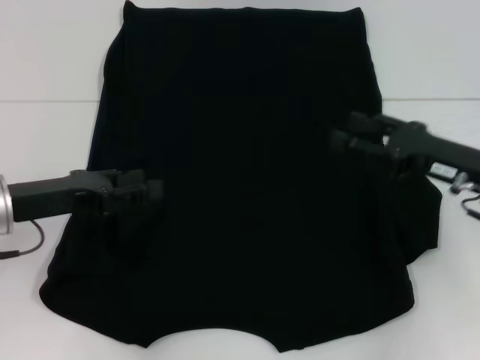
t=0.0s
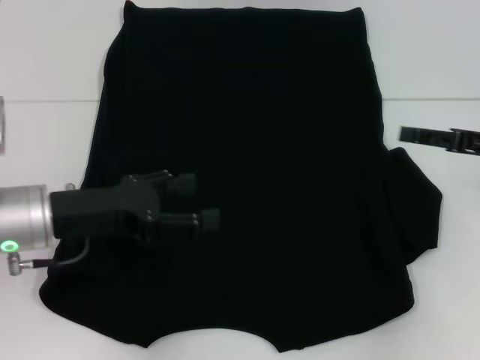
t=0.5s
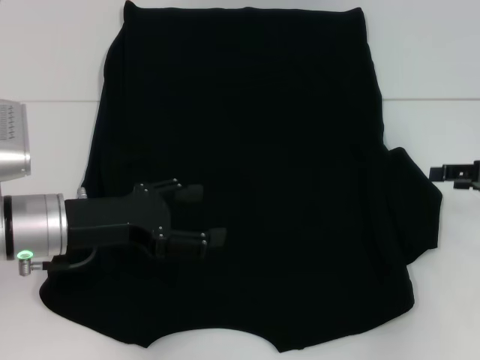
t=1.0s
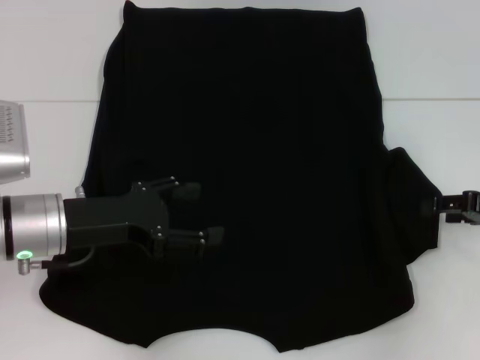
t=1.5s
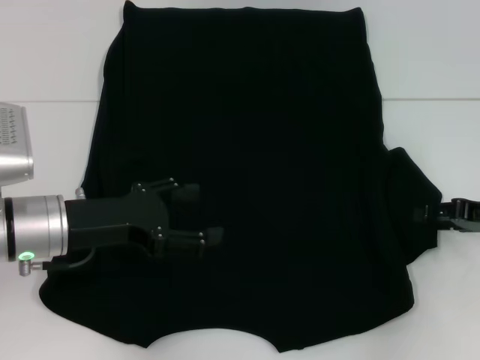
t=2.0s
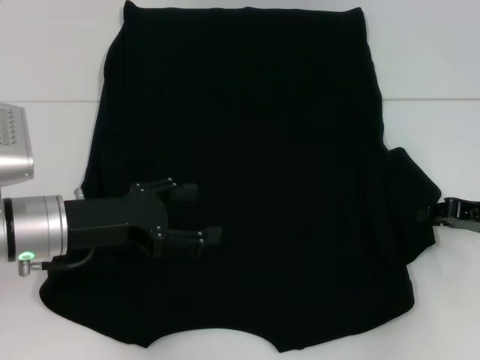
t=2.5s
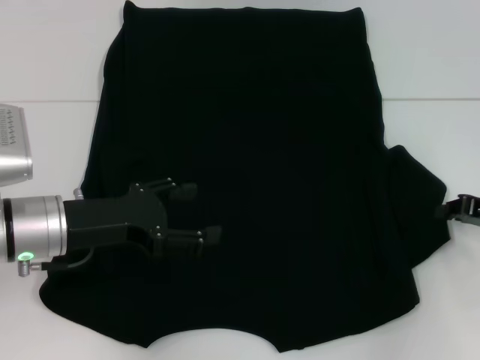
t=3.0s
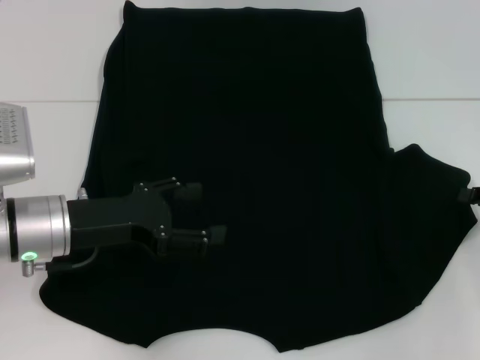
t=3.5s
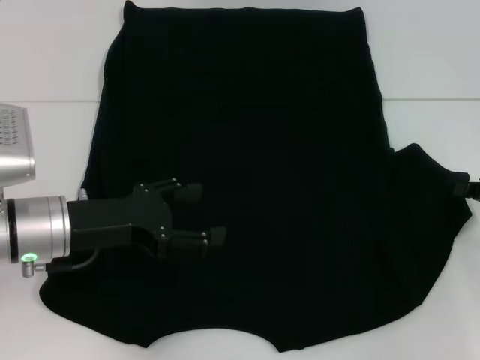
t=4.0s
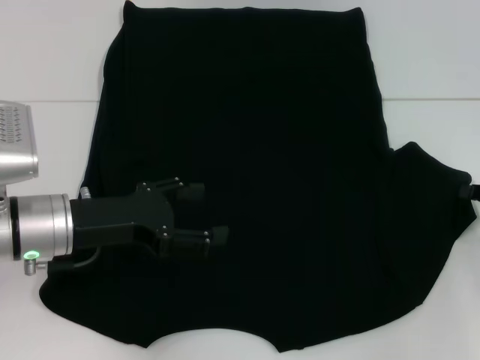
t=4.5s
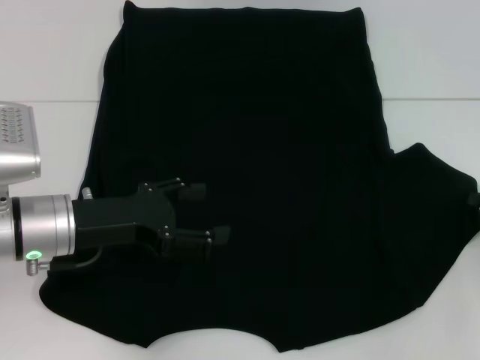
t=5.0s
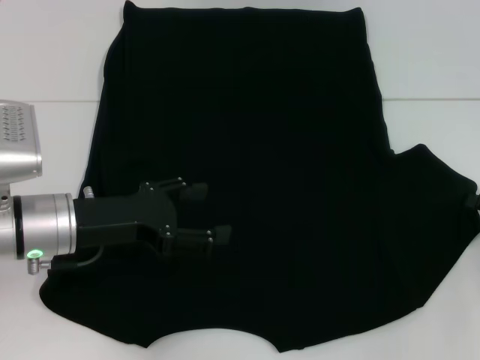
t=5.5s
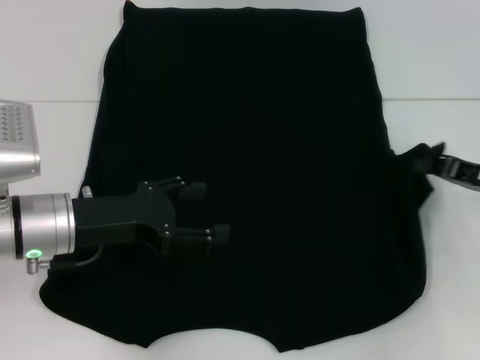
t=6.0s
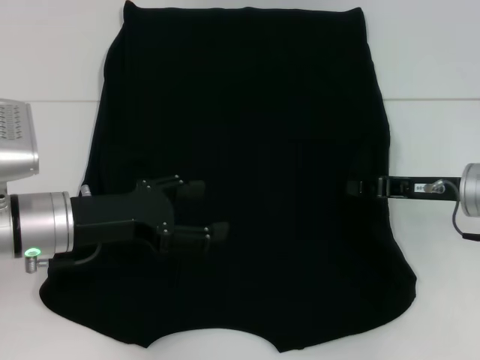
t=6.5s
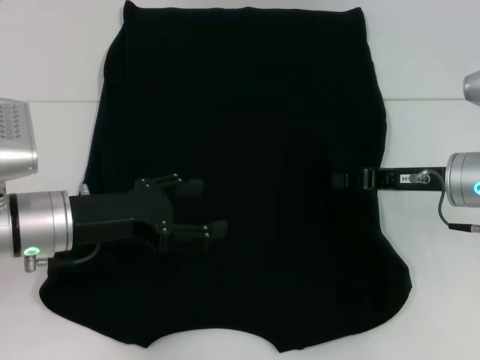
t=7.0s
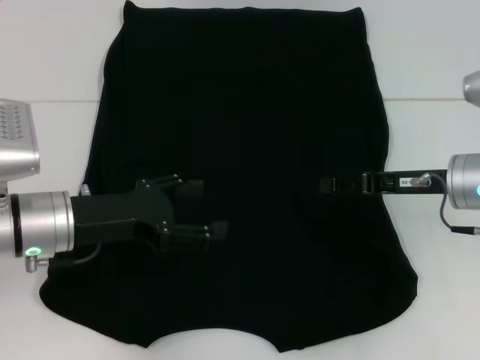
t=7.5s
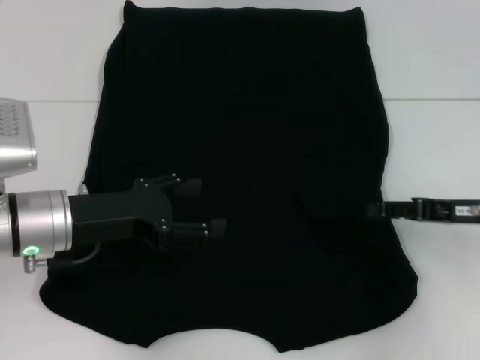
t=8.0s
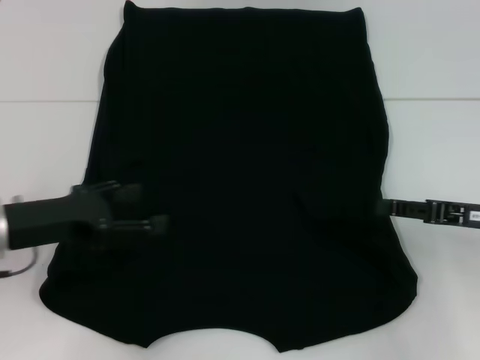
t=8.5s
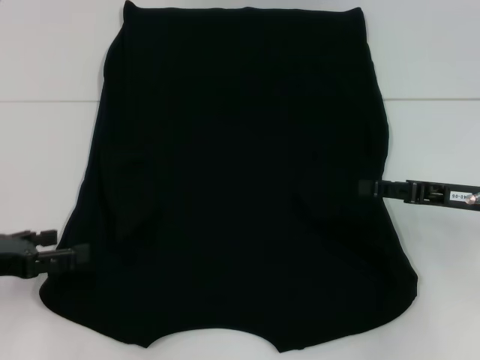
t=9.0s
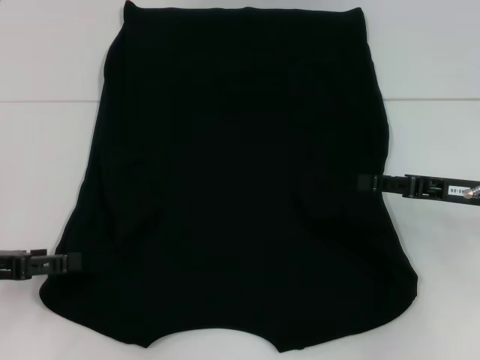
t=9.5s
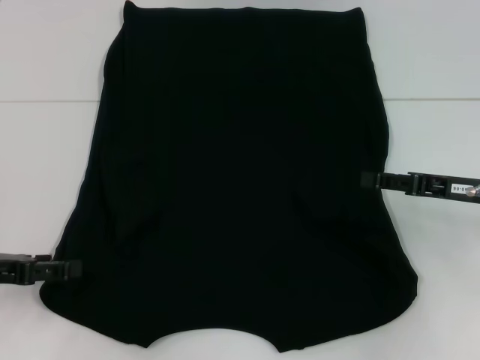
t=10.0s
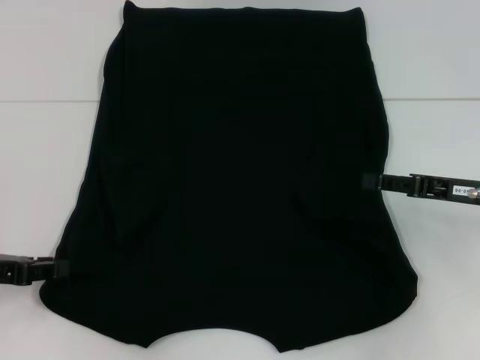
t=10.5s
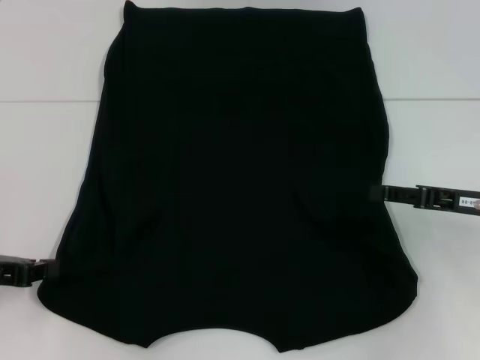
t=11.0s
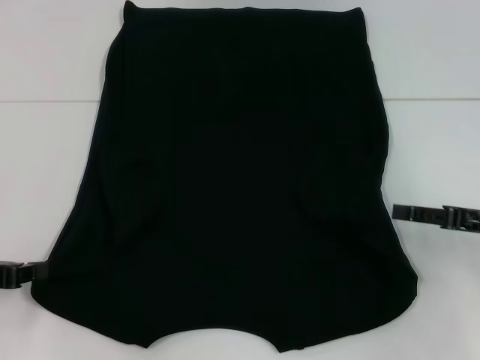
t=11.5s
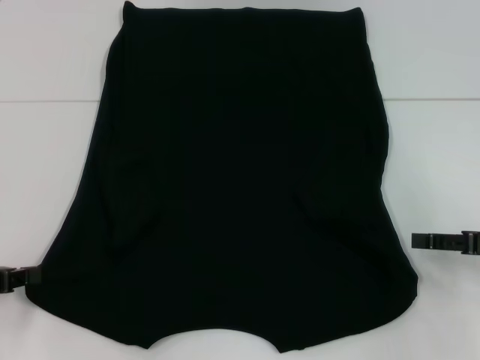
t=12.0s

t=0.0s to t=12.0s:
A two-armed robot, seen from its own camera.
Step, t=0.5s to t=7.5s: Fold the bottom right sleeve with your right hand.
t=0.0s to t=2.0s: The left gripper shifts by roughly 5 cm, and opens up. Meanwhile the right gripper shifts roughly 10 cm to the right.
t=2.0s to t=4.0s: The right gripper closes.
t=4.0s to t=6.0s: The grippers stay close to where they were, moving slightly.
t=6.0s to t=8.0s: The right gripper moves roughly 10 cm to the left and comes back, and opens its fingers.
t=8.0s to t=10.0s: The left gripper is displaced to the left by roughly 10 cm.
t=10.0s to t=12.0s: The left gripper closes; the right gripper moves to the right, some 5 cm.

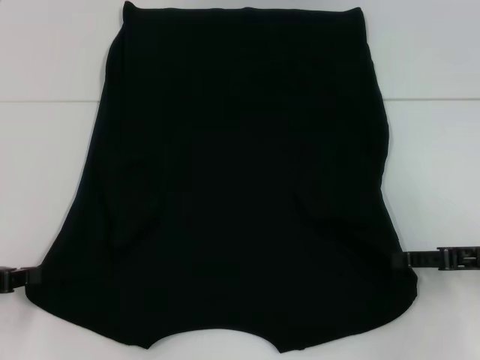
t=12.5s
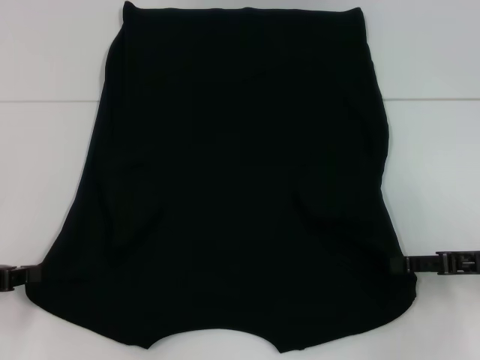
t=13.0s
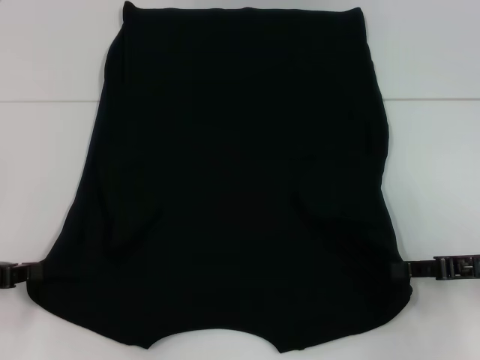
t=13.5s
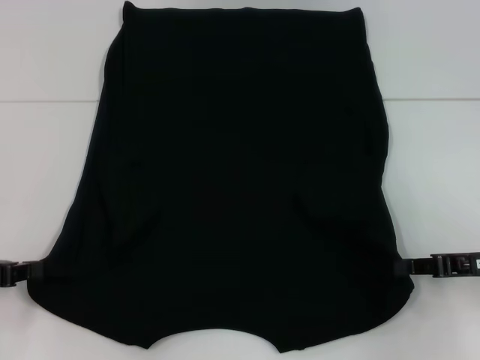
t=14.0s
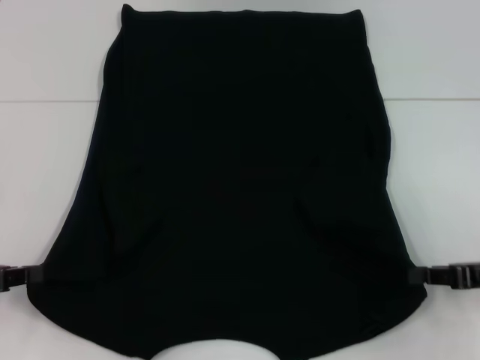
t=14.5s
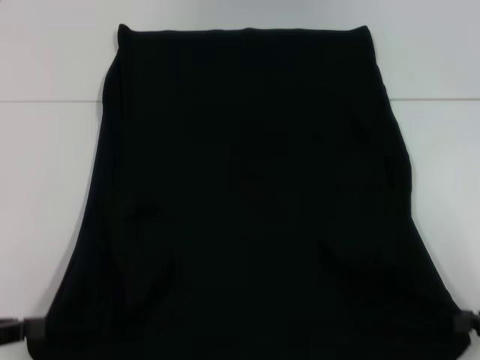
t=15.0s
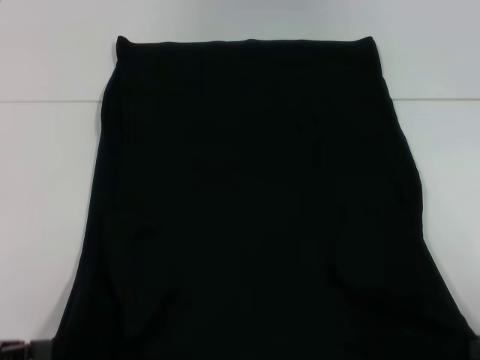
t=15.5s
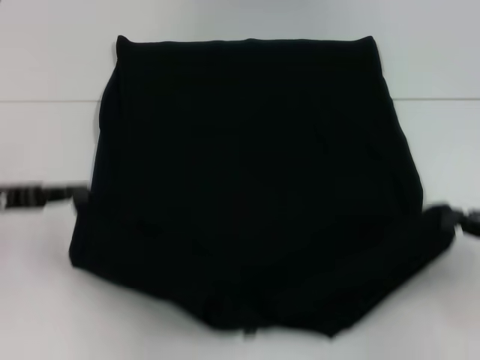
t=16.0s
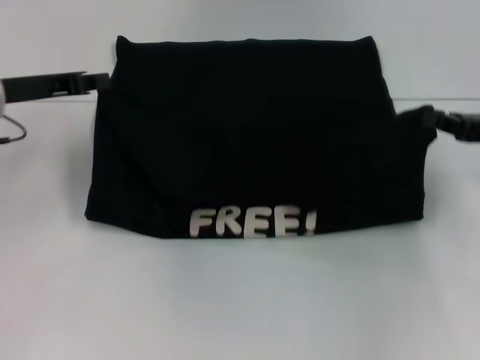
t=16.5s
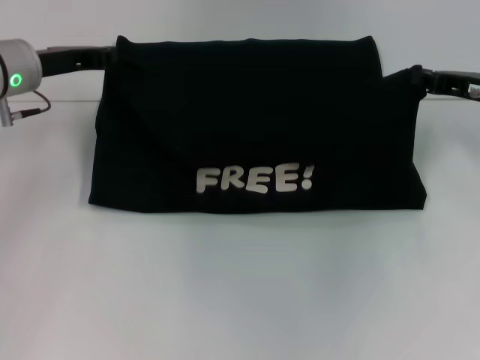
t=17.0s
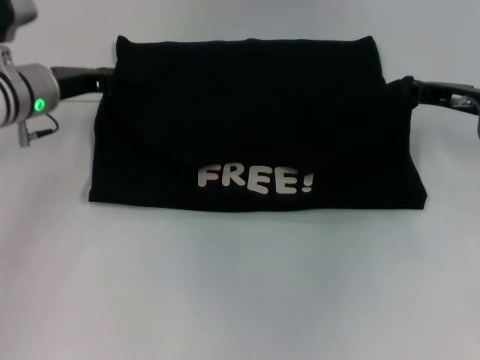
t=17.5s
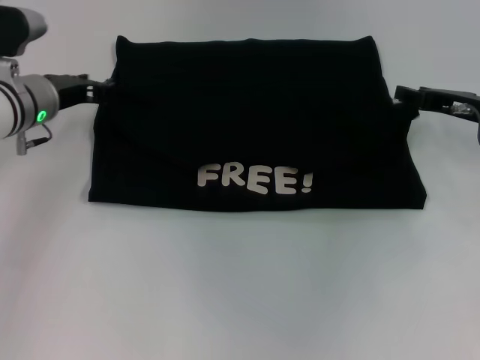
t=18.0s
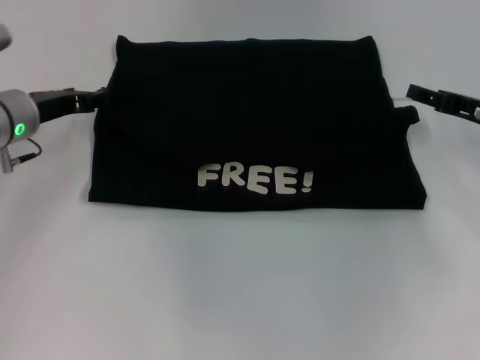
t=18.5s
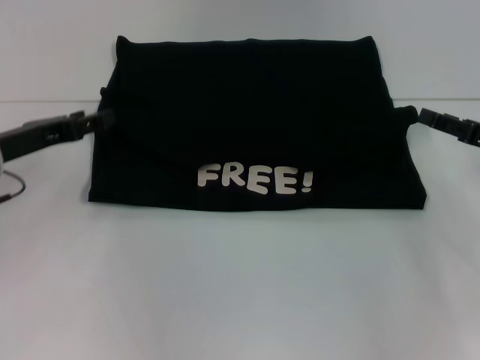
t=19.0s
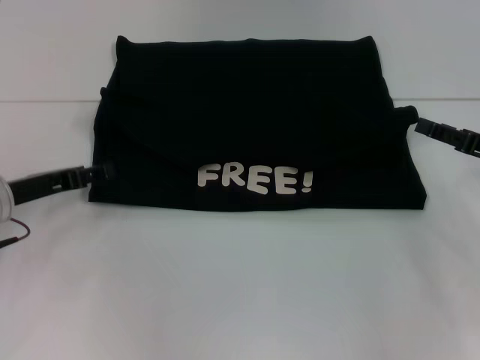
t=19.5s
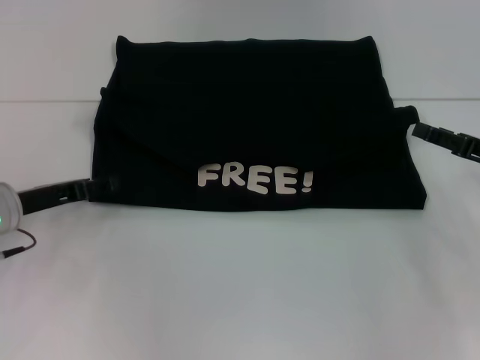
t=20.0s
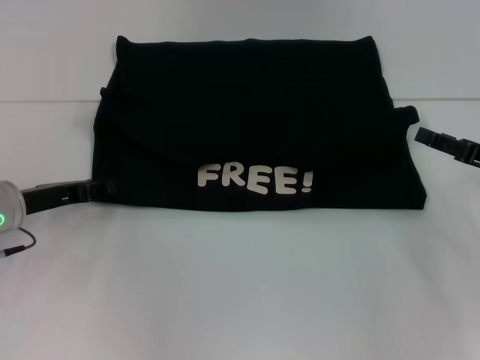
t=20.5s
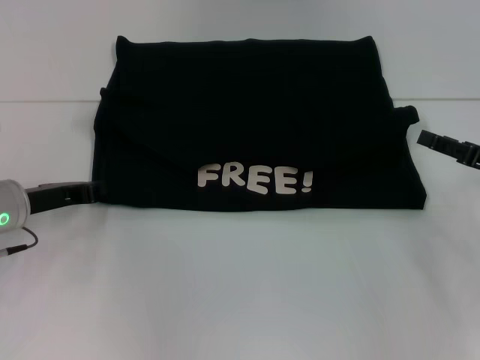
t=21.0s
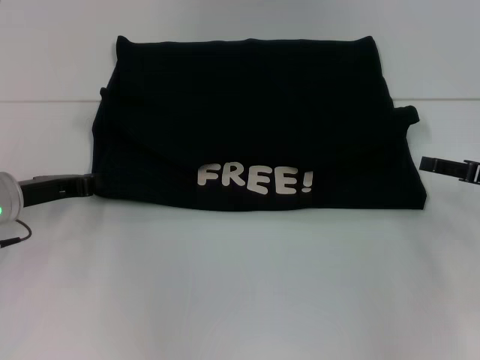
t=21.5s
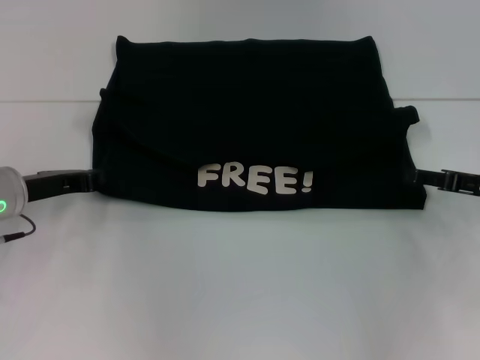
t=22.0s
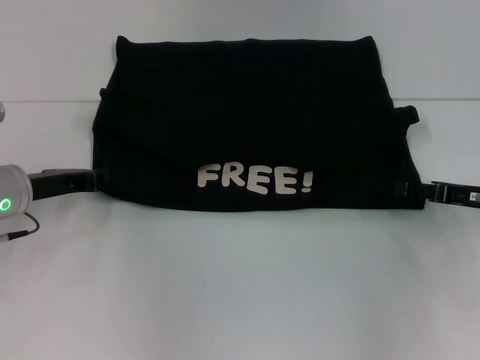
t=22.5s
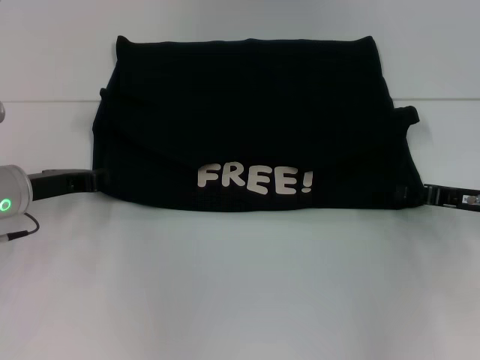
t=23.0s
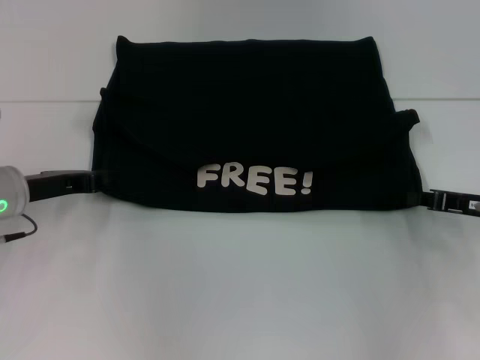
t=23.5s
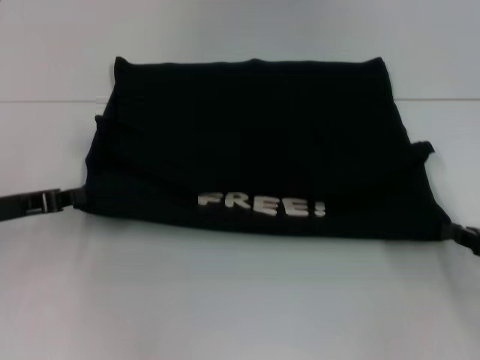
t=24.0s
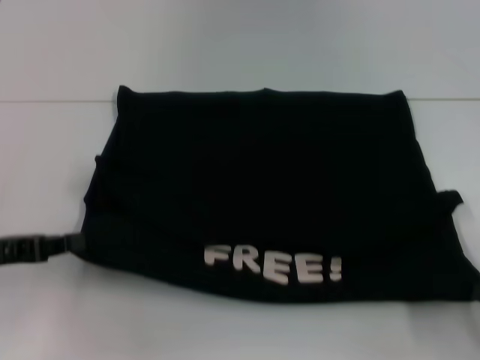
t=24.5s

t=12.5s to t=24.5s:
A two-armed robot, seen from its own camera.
Step, t=14.5s to t=18.0s: Fold the clothes with your left hand.
Step, t=14.5s to t=18.0s: Fold the clothes with your right hand.
t=12.5s to t=14.5s: The right gripper closes its fingers.
t=14.5s to t=16.5s: The right gripper goes about 10 cm forward and upward. Meanwhile the left gripper is displaced forward, upward and to the right by about 20 cm.
t=16.5s to t=18.5s: The left gripper changes place by about 5 cm, and opens its fingers. The right gripper opens.
t=18.5s to t=20.5s: Both grippers travel together backward, about 5 cm.
t=20.5s to t=22.5s: The left gripper closes up.
t=22.5s to t=24.5s: The right gripper is displaced backward and to the right by approximately 15 cm, and closes up. Meanwhile the left gripper travels backward and to the left by about 10 cm.

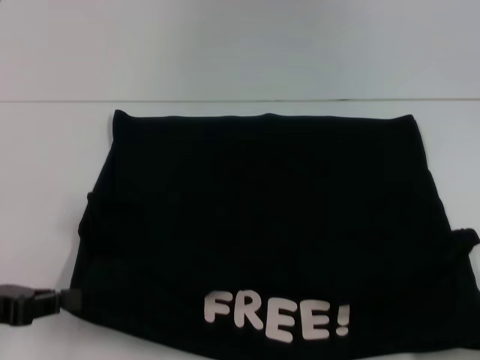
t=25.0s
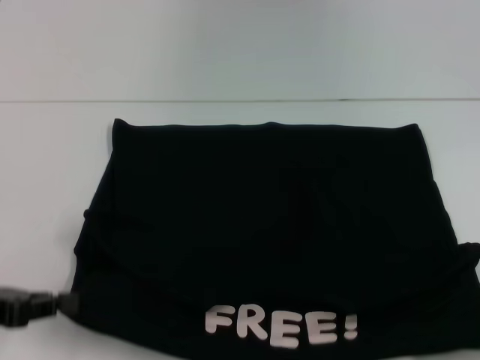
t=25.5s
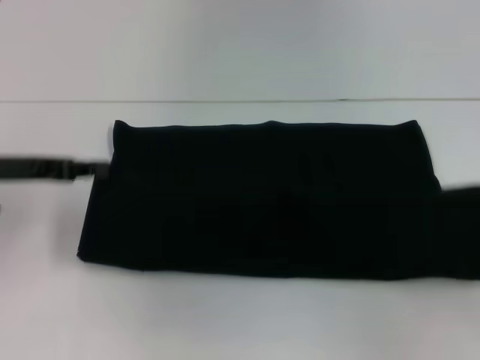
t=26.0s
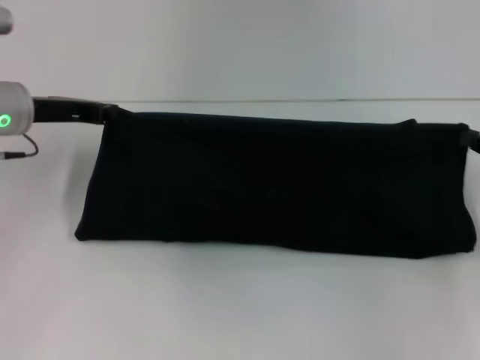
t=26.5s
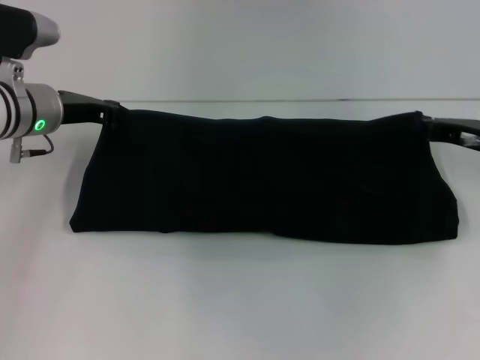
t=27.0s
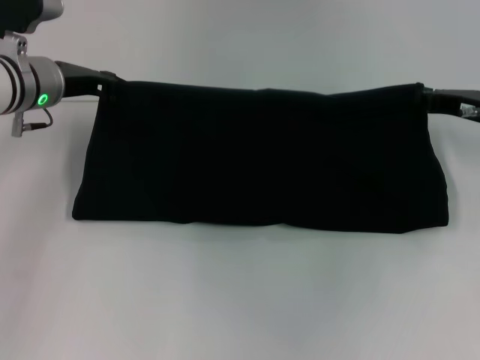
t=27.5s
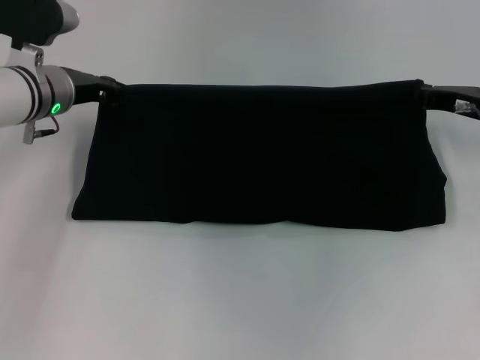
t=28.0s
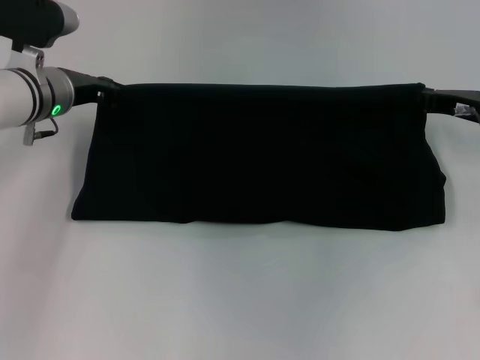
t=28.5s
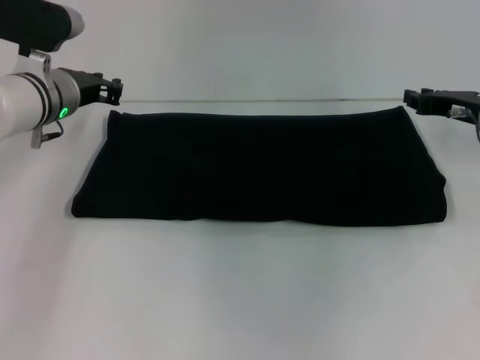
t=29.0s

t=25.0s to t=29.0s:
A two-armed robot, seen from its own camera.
t=25.0s to t=27.0s: The right gripper goes about 25 cm forward. Meanwhile the left gripper travels forward and to the right by about 25 cm.
t=27.0s to t=29.0s: The grippers make only small movements.
